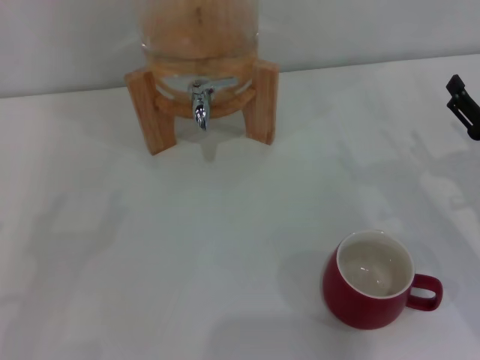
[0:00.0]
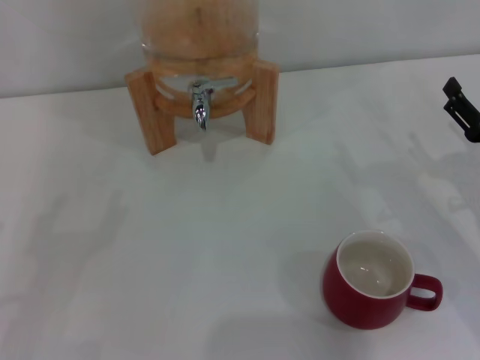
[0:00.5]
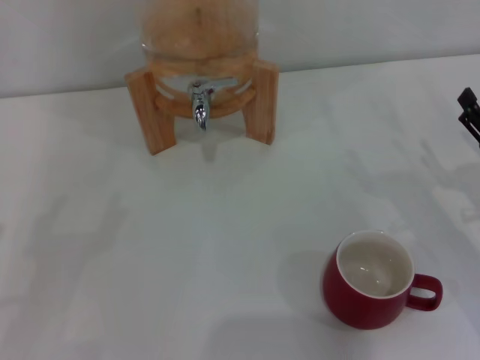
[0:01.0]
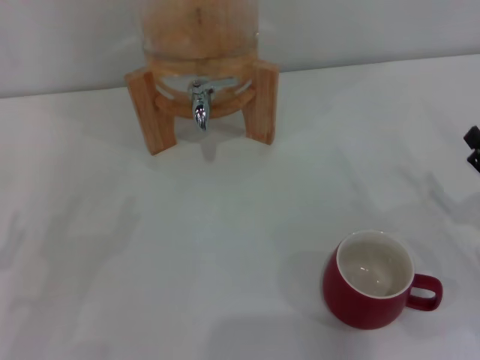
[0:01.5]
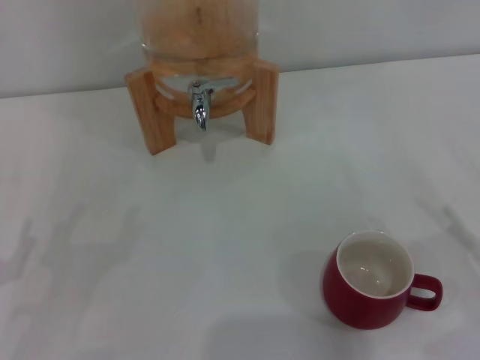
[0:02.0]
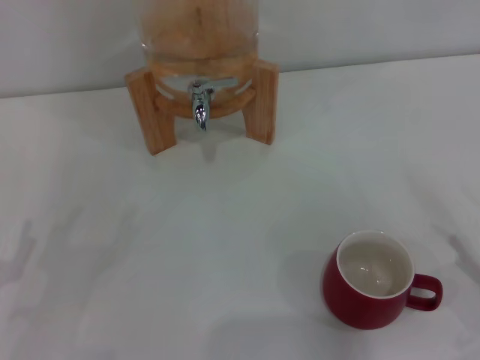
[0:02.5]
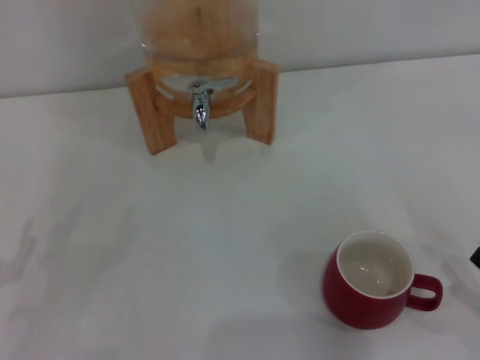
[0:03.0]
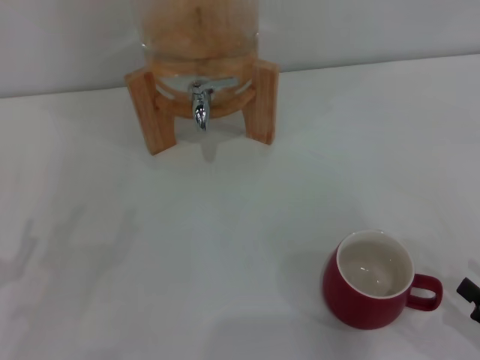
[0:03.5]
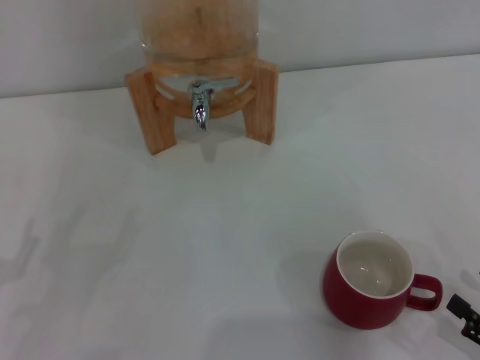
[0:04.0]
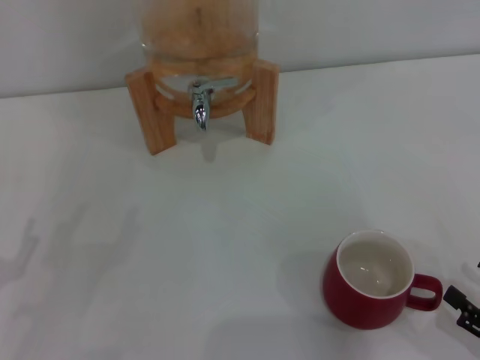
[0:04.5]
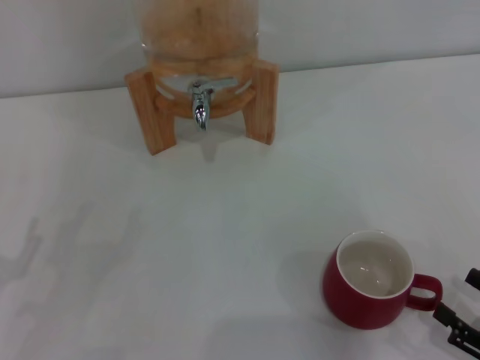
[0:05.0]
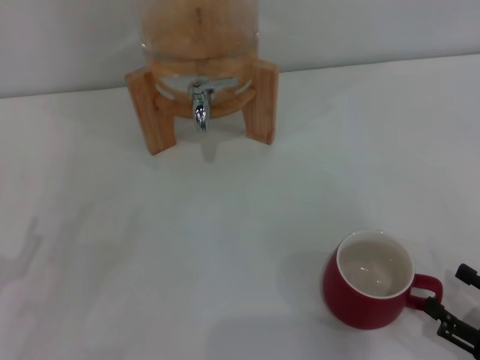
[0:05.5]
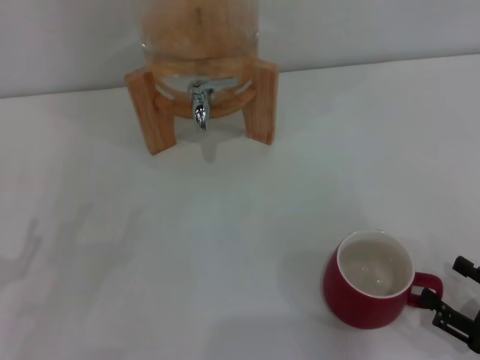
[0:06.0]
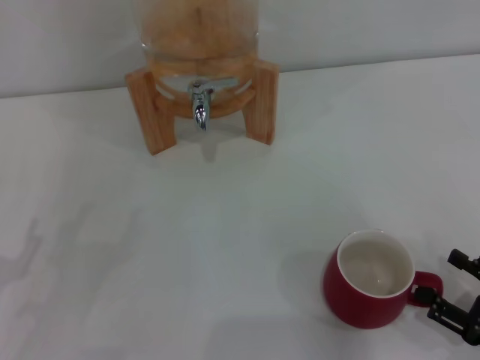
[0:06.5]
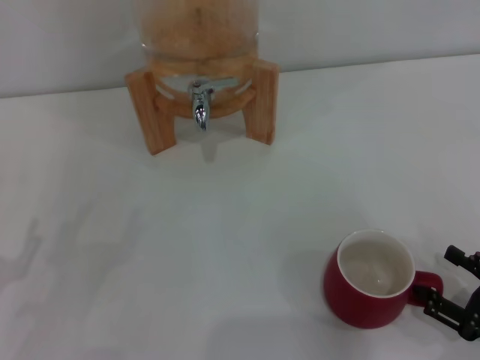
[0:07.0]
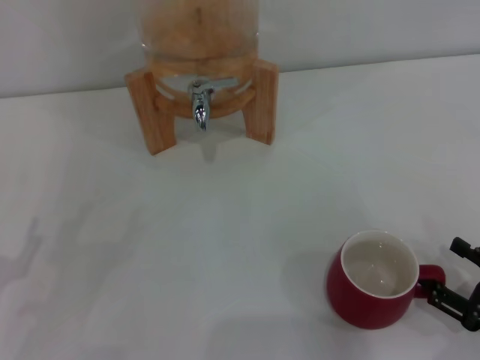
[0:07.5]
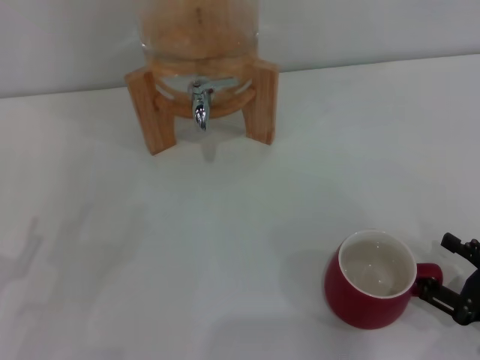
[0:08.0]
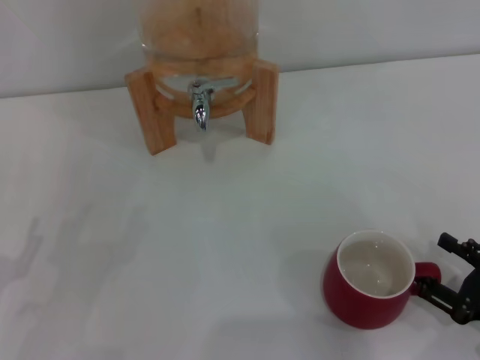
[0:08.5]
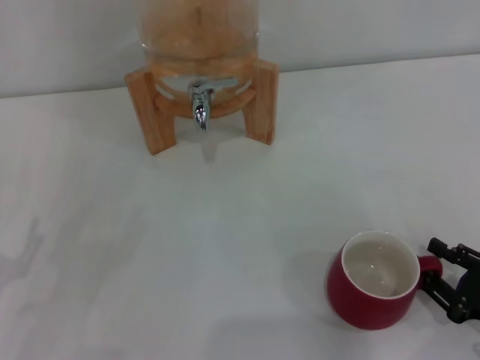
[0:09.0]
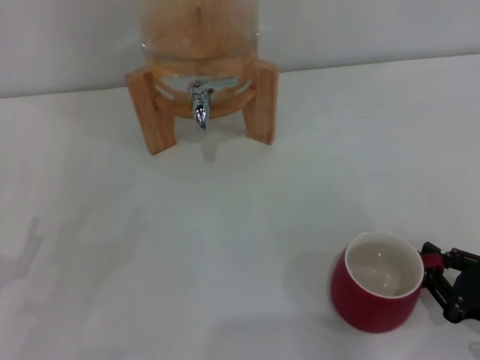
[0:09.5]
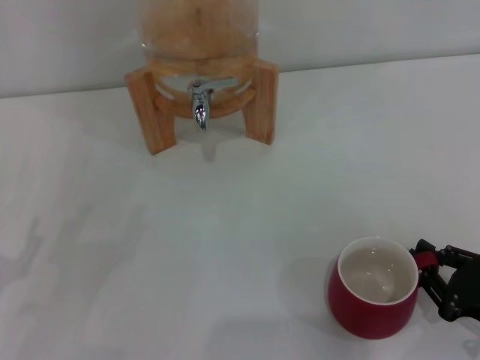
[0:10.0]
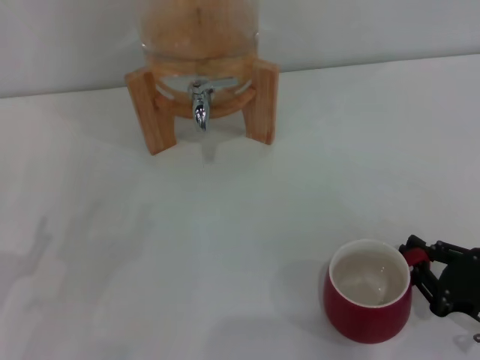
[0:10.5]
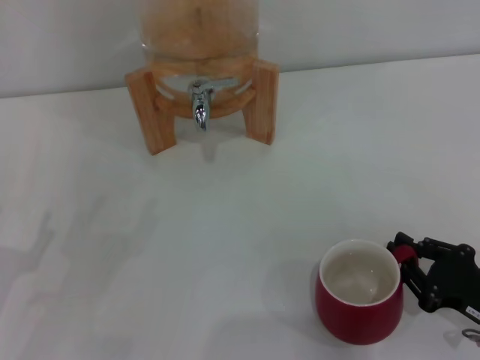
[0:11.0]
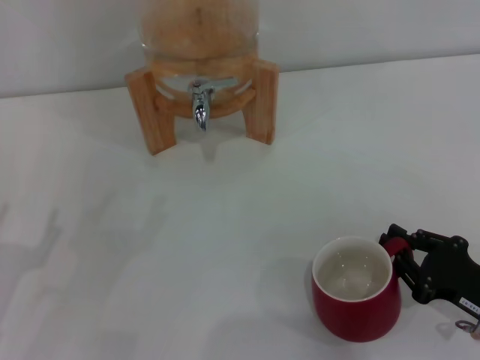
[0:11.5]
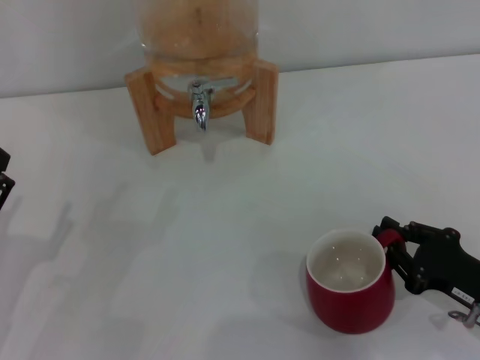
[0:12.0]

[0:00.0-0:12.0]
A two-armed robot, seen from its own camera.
Task of the whole recording: the right gripper pick up the red cup and place it horizontally under the faucet, the left gripper turn on the faucet to fill the cup, and then turn off the faucet.
0:00.0 to 0:02.0: The right gripper heads backward, covering approximately 10 cm.
0:02.0 to 0:04.0: The right gripper moves backward, some 5 cm.
0:04.0 to 0:08.0: The grippers make only small movements.
0:08.0 to 0:10.0: The right gripper closes up.
0:10.0 to 0:12.0: The grippers stay close to where they were, moving slightly.

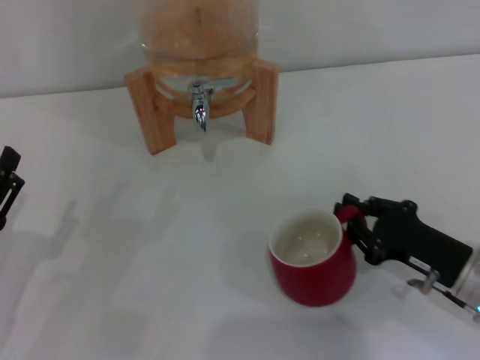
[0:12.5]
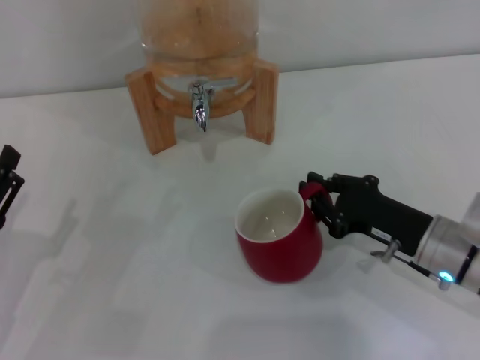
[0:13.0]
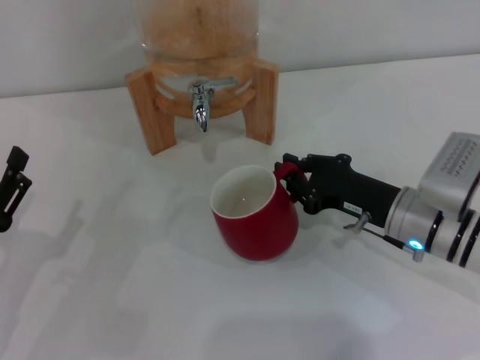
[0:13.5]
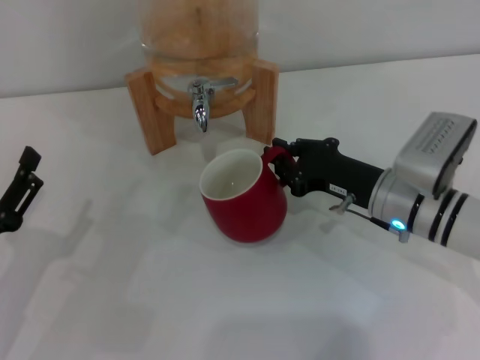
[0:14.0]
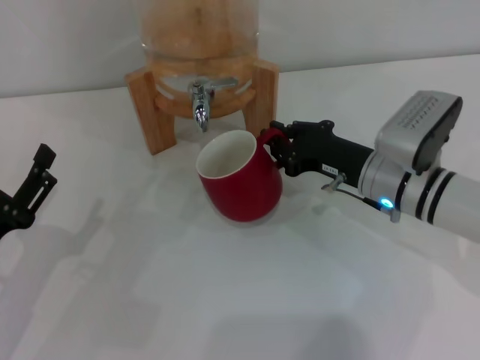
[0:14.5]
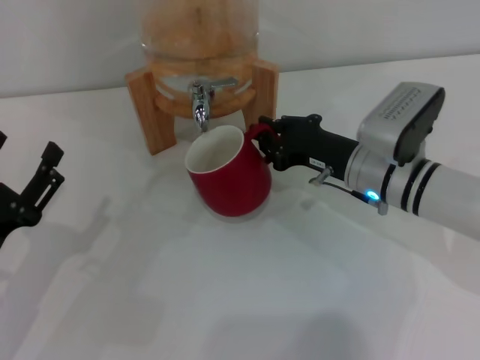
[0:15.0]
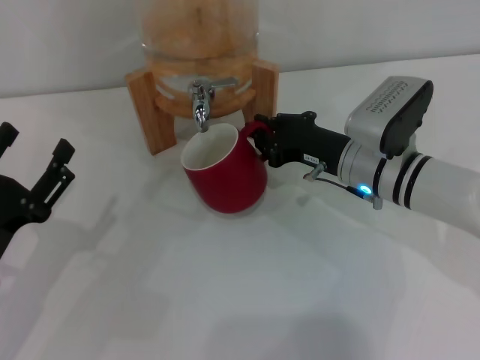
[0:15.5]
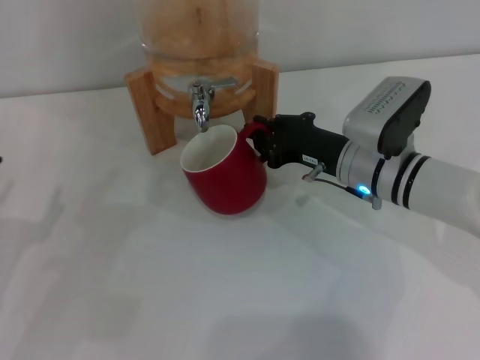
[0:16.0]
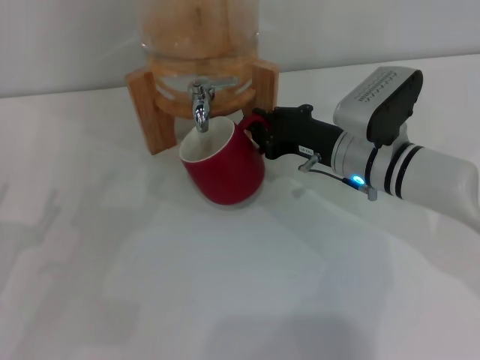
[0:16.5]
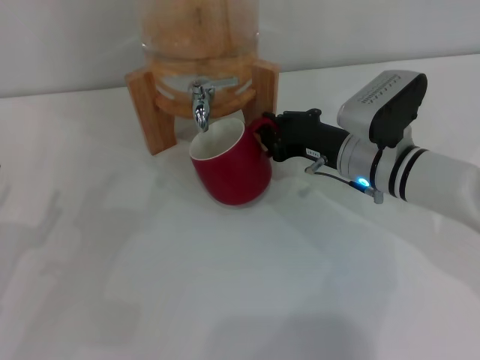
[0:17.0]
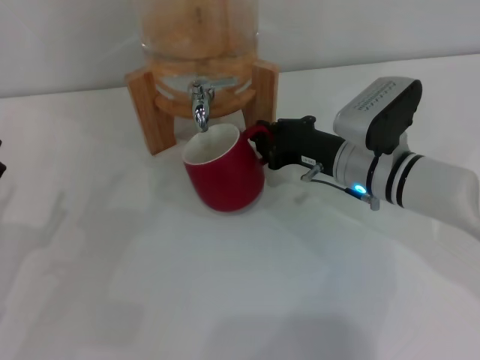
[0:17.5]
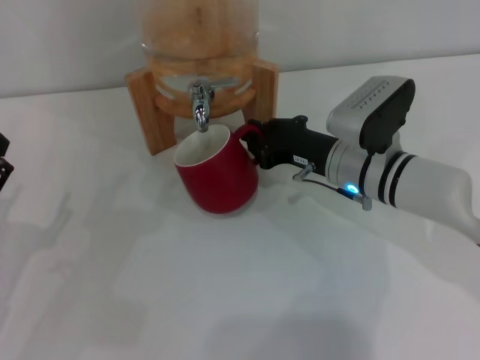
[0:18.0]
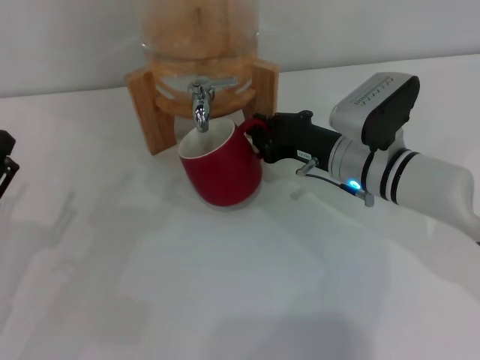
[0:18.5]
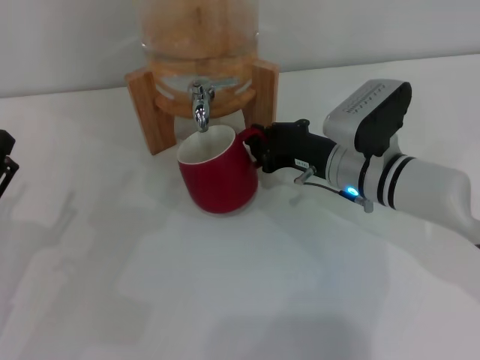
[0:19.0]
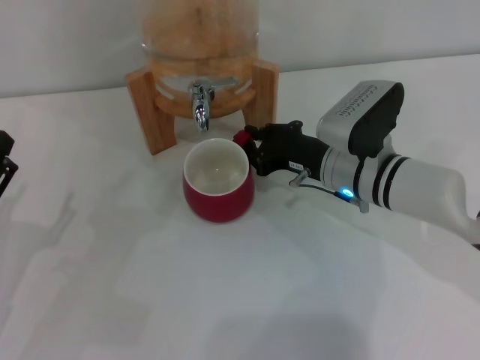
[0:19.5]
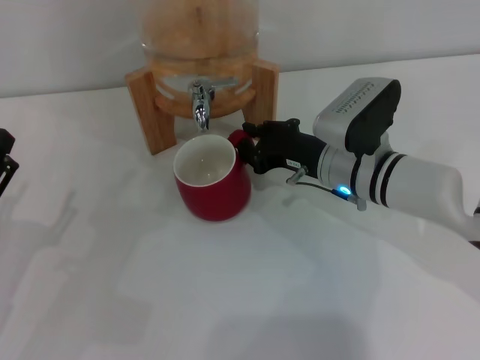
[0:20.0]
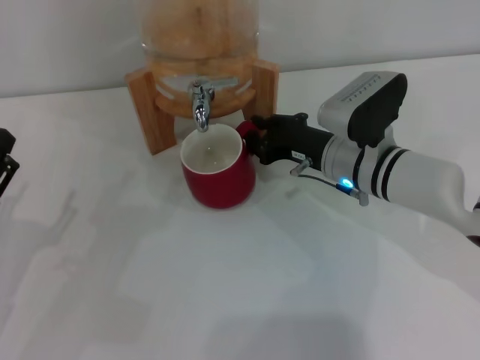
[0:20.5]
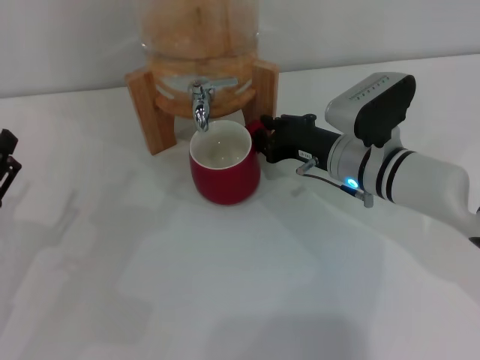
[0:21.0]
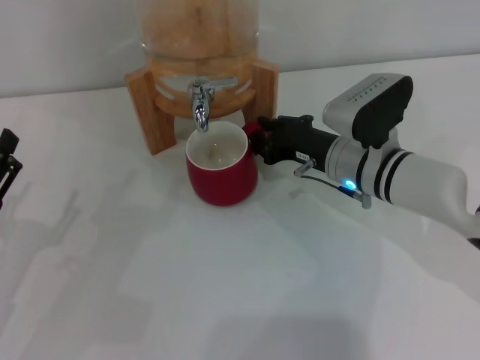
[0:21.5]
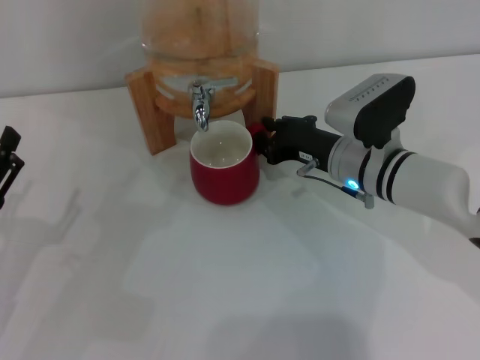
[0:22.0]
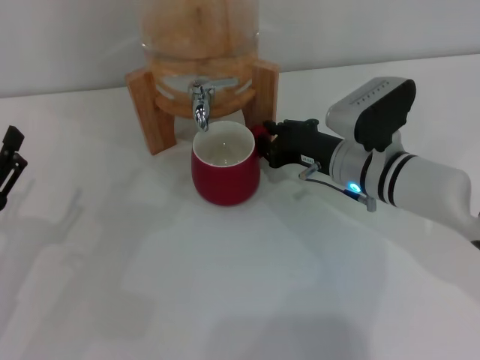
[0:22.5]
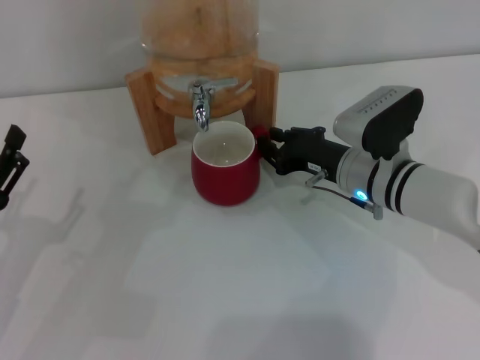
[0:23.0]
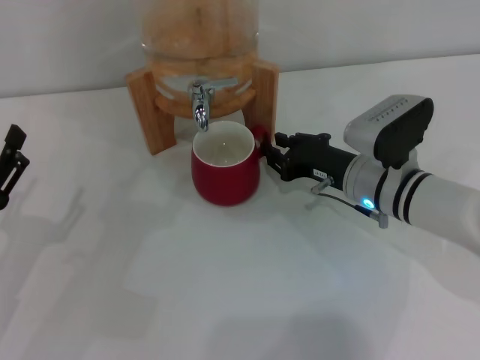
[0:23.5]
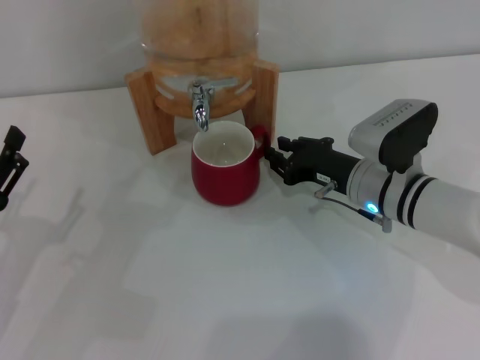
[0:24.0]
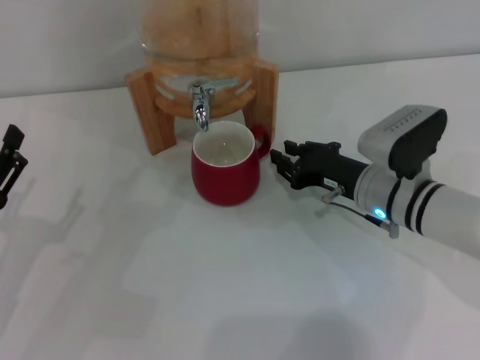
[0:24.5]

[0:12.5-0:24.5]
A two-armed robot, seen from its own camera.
Task of the whole recording: the right gripper pick up the red cup and place it horizontally under the faucet, the left gripper turn on the faucet to fill the cup, and then turn off the faucet.
Step, 0:12.5 to 0:23.5: Move the cup beneath the water dispenser nozzle with the right gripper.
0:12.5 to 0:14.5: The right gripper travels forward and to the left by roughly 15 cm.
0:14.5 to 0:16.5: The grippers make only small movements.
0:16.5 to 0:18.5: Both grippers stay put.
0:18.5 to 0:20.5: The two grippers keep their place.
0:20.5 to 0:22.5: Both grippers stay about where they are.
0:22.5 to 0:24.5: The grippers make only small movements.

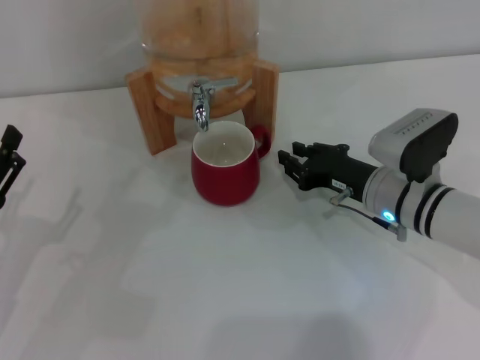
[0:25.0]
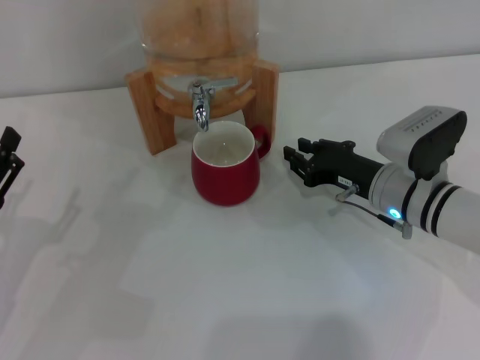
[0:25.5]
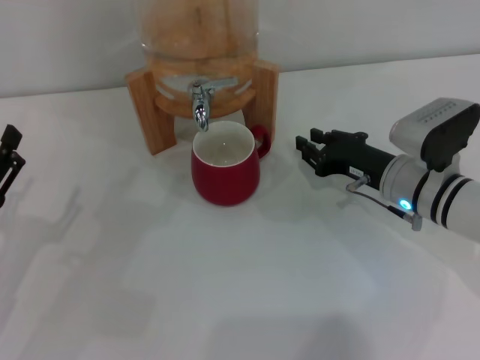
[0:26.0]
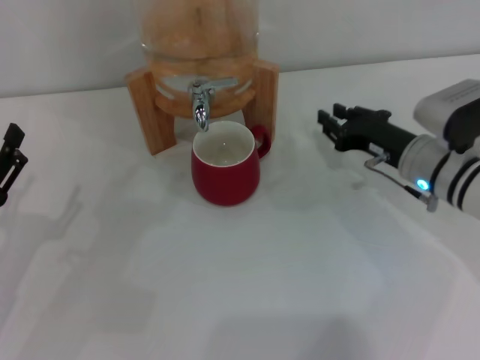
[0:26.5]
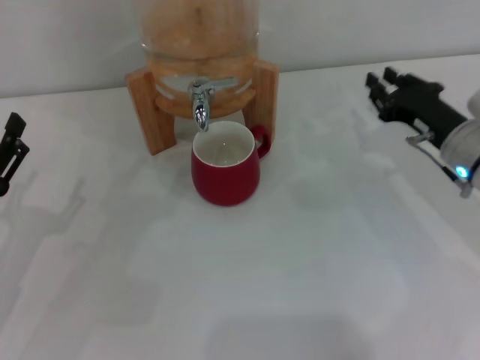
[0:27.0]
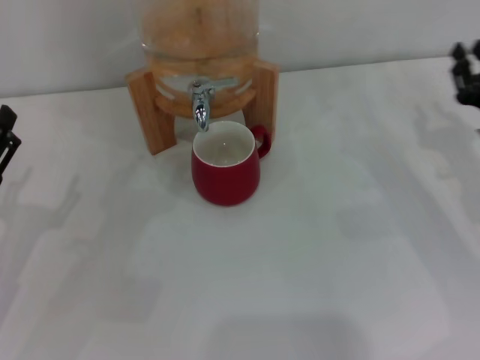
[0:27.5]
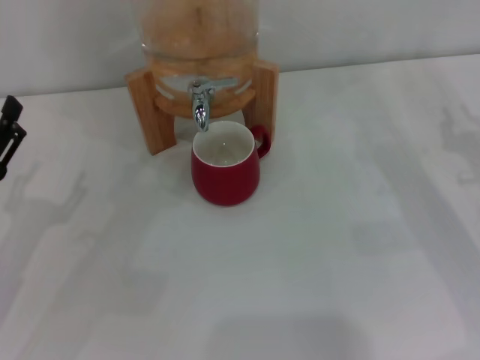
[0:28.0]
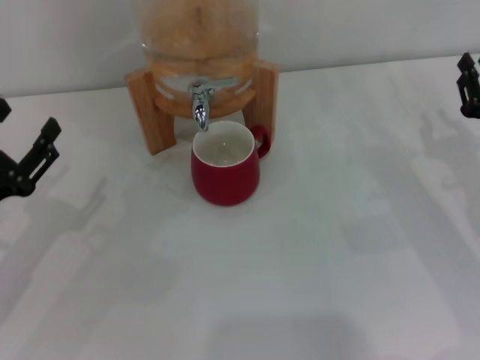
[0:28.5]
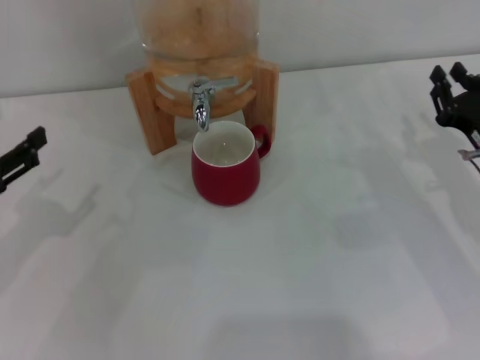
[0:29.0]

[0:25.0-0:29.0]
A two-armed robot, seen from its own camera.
Task of the whole recording: the right gripper pick up the red cup and place it horizontally under the faucet, the left gripper turn on the faucet to fill the cup, and then turn off the faucet.
0:25.0 to 0:27.0: The right gripper is displaced to the right by some 10 cm.
0:27.0 to 0:29.0: The right gripper shifts by roughly 5 cm; the left gripper goes roughly 10 cm upward.
